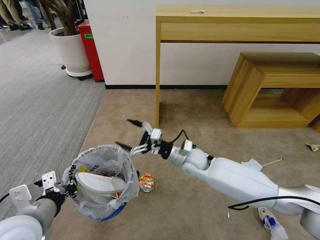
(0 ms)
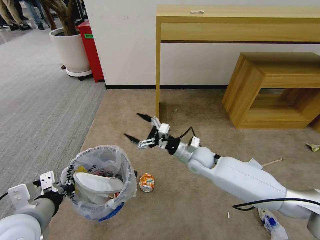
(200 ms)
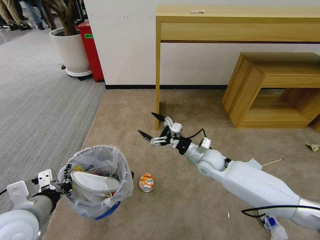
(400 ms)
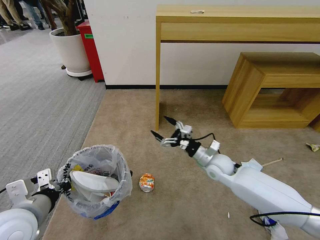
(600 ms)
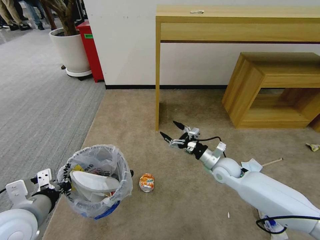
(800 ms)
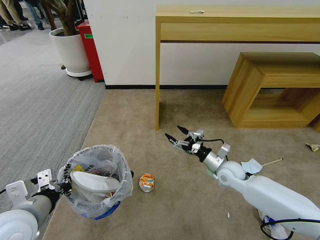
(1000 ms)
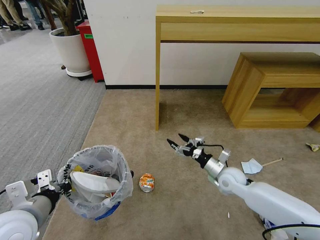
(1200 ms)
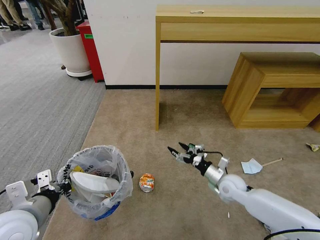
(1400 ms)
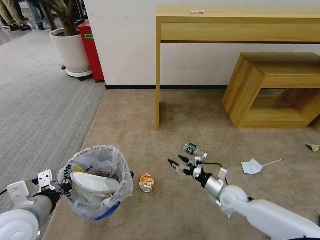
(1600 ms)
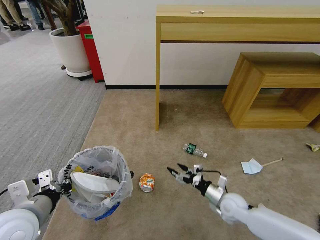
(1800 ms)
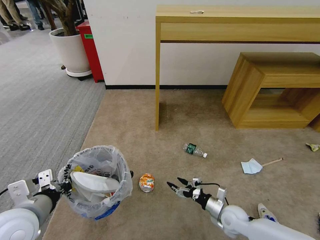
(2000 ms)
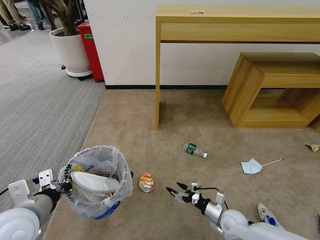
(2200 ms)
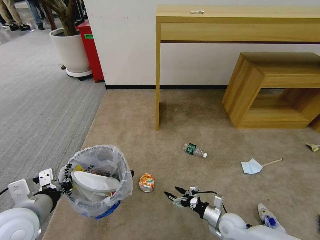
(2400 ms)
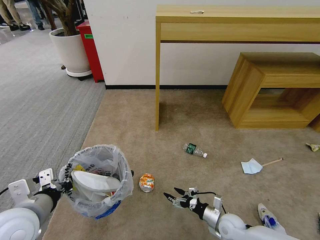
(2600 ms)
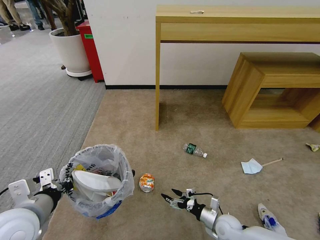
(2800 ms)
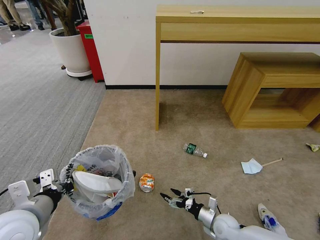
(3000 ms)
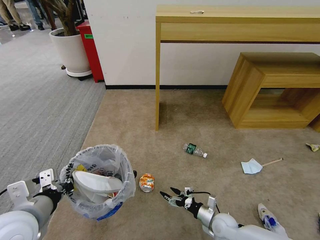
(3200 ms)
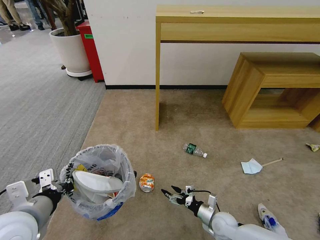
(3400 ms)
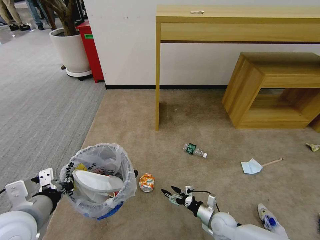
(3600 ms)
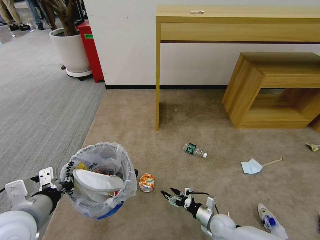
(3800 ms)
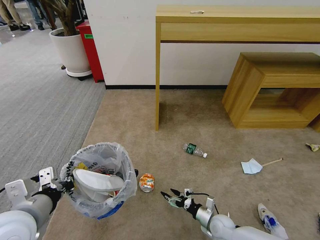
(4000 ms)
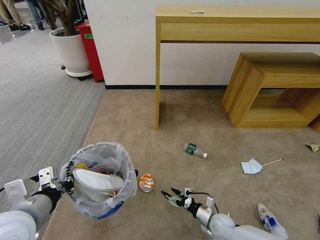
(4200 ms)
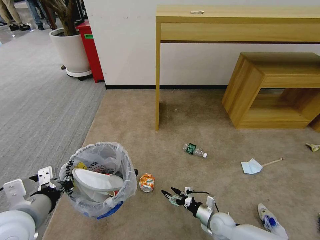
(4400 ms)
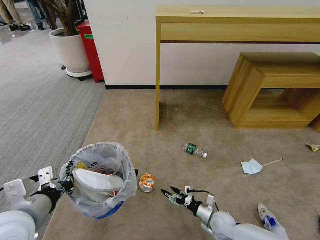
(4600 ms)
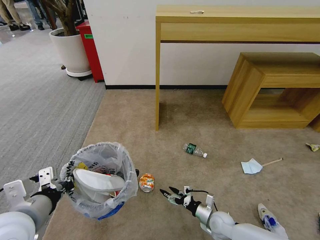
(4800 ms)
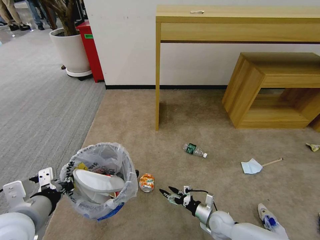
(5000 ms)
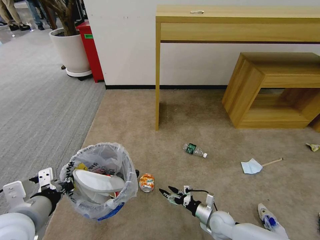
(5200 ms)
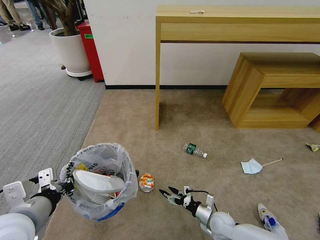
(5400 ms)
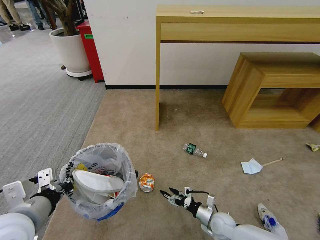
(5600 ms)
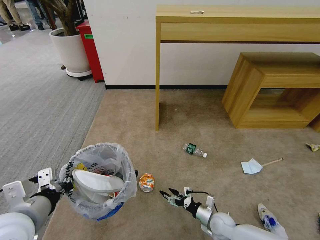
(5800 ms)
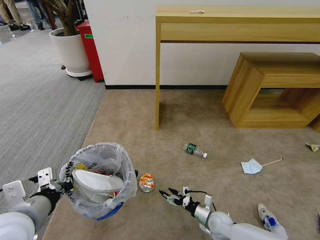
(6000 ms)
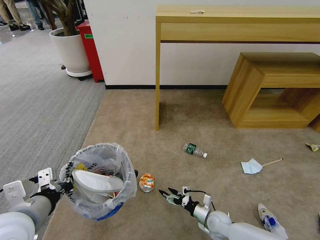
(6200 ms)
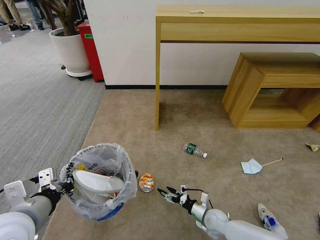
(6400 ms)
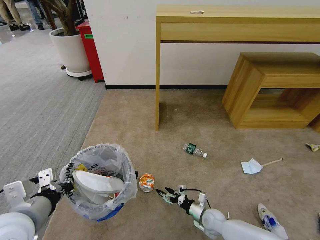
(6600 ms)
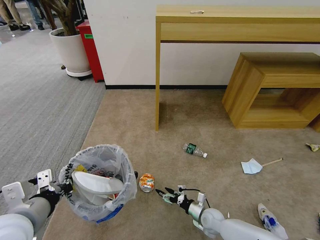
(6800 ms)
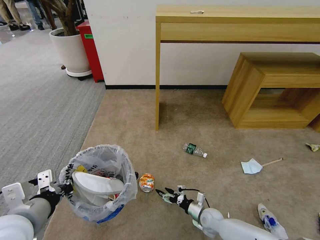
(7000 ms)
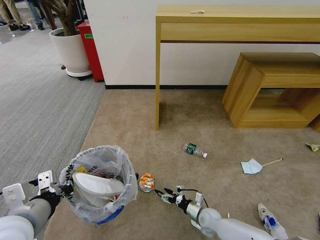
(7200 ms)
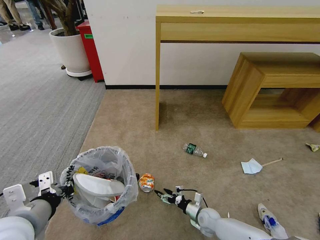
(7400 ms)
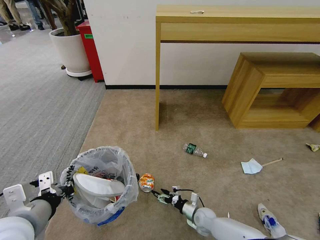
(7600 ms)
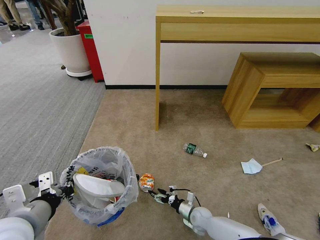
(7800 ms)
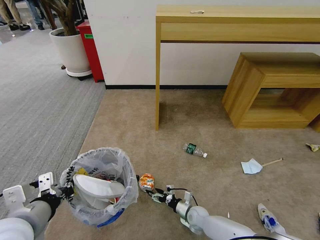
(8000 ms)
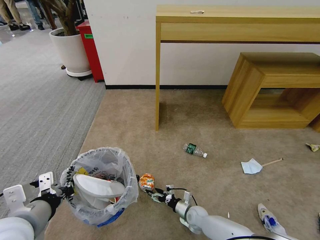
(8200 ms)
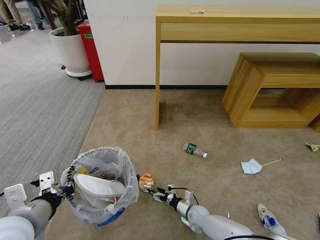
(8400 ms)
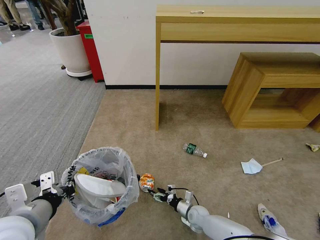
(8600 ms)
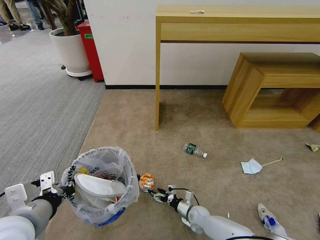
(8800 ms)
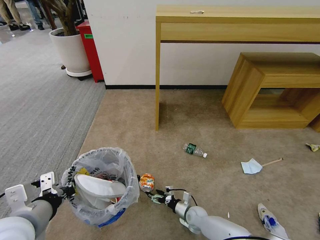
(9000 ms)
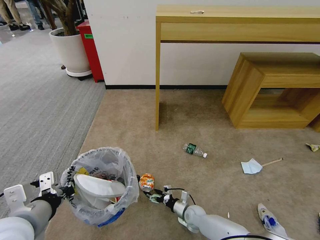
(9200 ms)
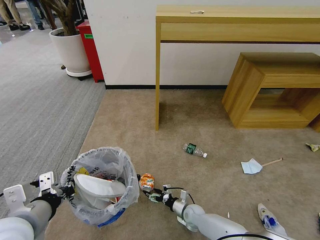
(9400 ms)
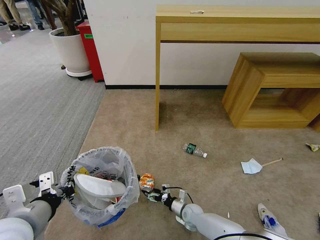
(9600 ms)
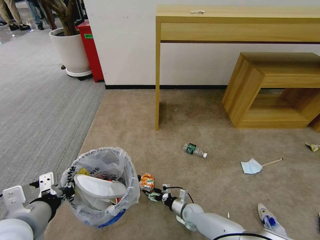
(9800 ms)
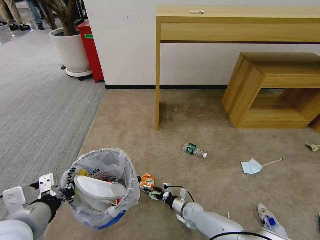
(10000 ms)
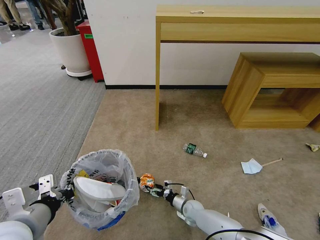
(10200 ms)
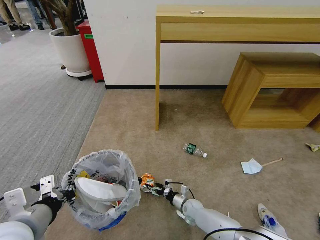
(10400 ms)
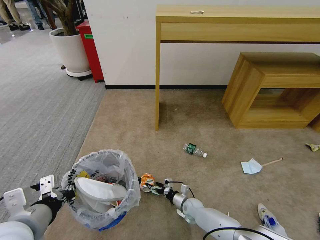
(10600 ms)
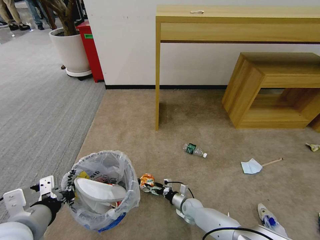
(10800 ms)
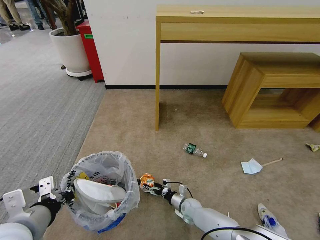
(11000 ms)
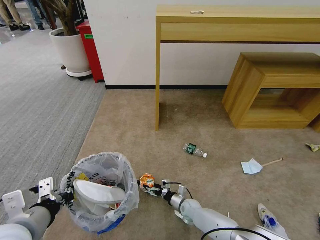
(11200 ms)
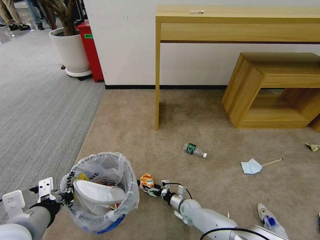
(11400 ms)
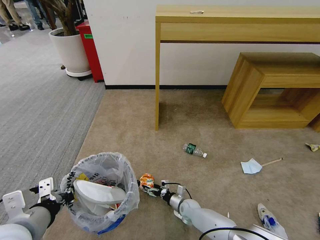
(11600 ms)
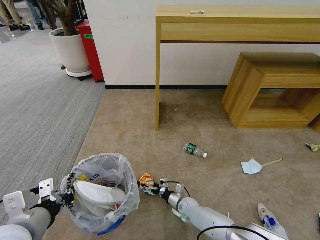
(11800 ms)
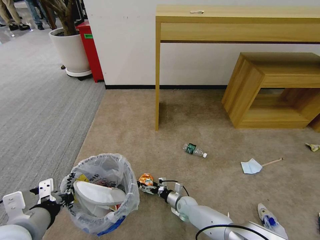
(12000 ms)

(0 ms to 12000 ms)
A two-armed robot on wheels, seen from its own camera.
Task of the whole recording: Pick up the trash bin and place the garbage on the floor into it.
0 ms - 1600 ms: The right gripper travels to the right, downward and backward by some 20 cm.
1600 ms - 3000 ms: The right gripper heads downward and backward, covering roughly 10 cm.
3000 ms - 4400 ms: The grippers move only a little.
4400 ms - 6000 ms: Both grippers stay about where they are.
6000 ms - 7600 ms: The right gripper shifts by some 5 cm.
7600 ms - 9000 ms: The grippers stay close to where they were, moving slightly.
9000 ms - 12000 ms: There are only small adjustments of the grippers.

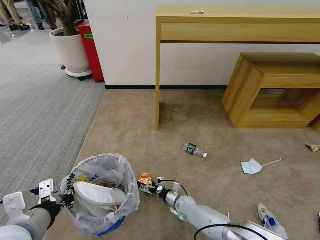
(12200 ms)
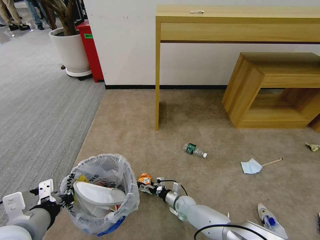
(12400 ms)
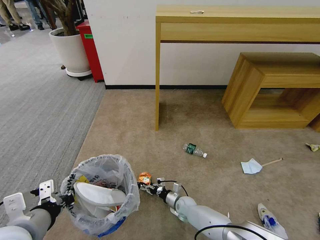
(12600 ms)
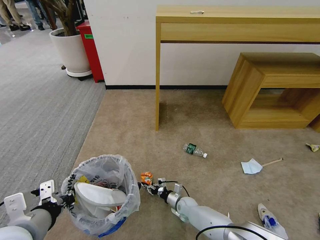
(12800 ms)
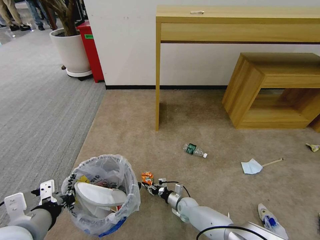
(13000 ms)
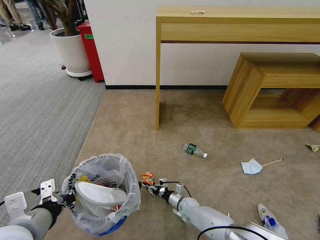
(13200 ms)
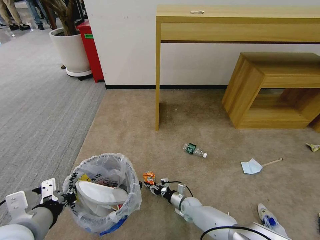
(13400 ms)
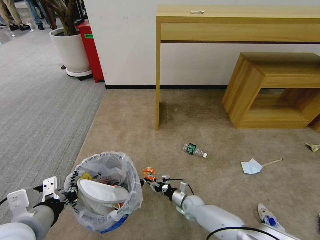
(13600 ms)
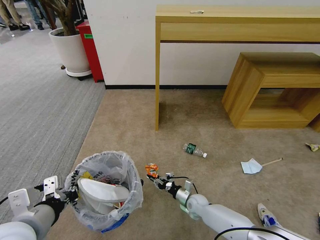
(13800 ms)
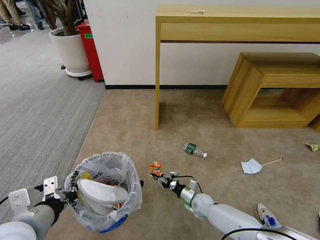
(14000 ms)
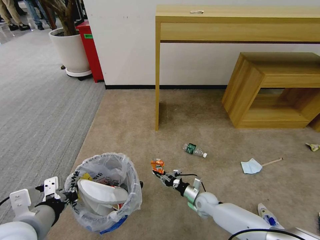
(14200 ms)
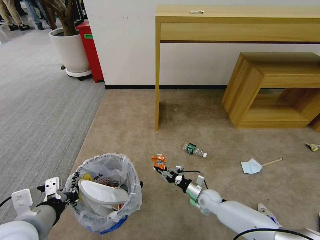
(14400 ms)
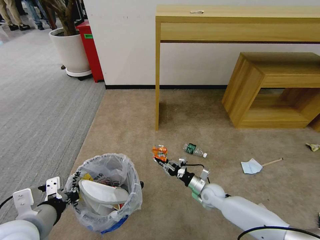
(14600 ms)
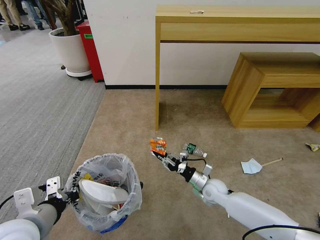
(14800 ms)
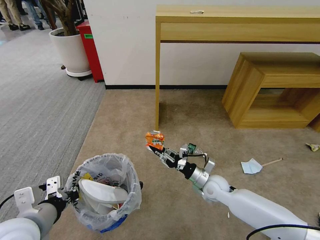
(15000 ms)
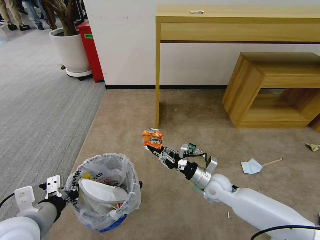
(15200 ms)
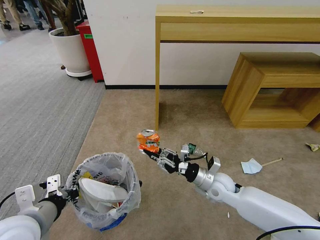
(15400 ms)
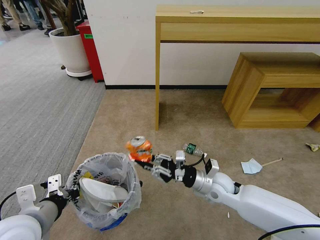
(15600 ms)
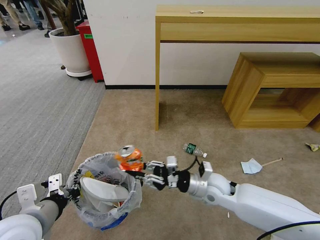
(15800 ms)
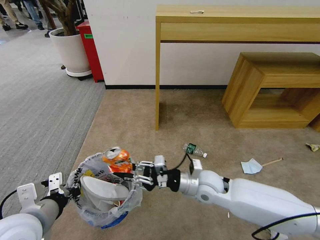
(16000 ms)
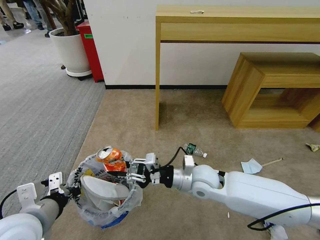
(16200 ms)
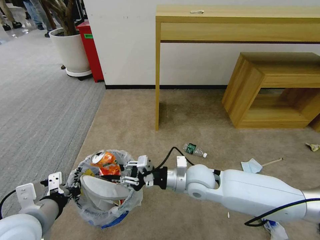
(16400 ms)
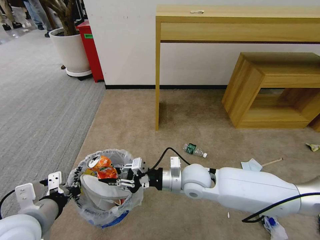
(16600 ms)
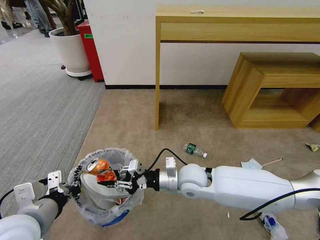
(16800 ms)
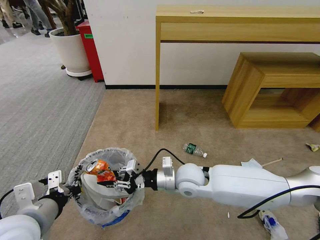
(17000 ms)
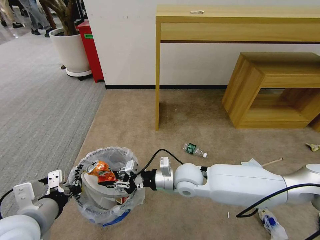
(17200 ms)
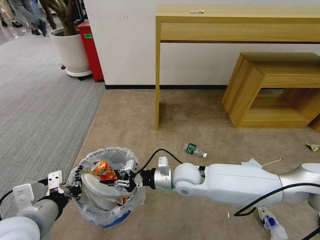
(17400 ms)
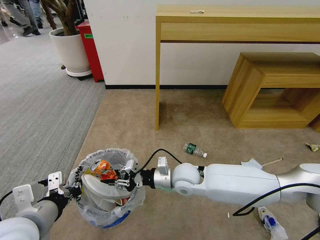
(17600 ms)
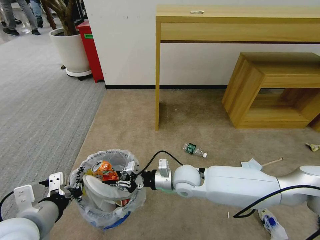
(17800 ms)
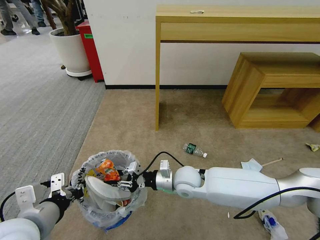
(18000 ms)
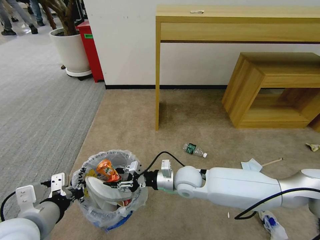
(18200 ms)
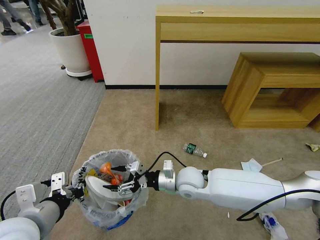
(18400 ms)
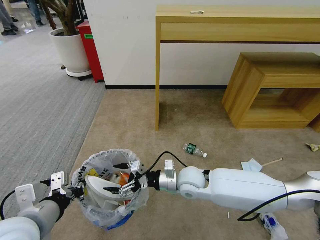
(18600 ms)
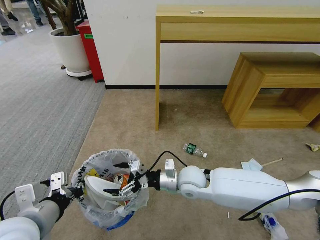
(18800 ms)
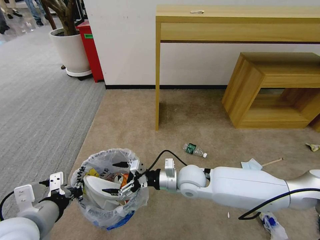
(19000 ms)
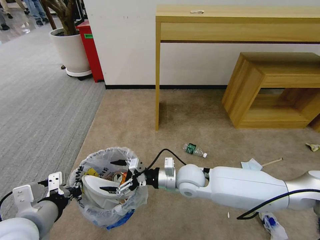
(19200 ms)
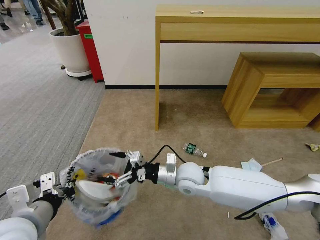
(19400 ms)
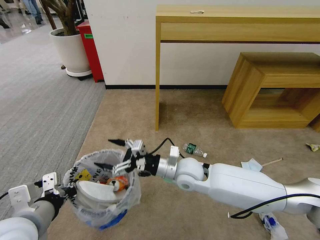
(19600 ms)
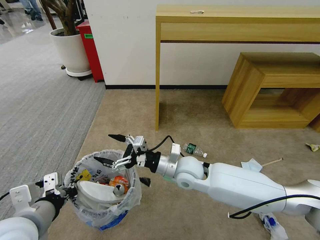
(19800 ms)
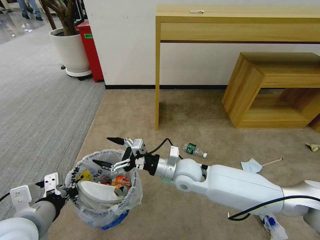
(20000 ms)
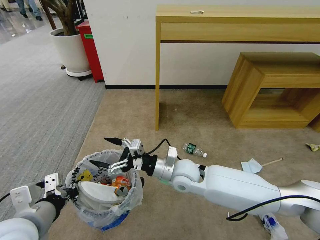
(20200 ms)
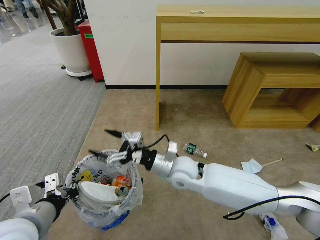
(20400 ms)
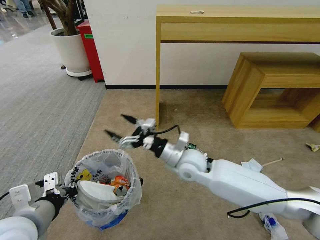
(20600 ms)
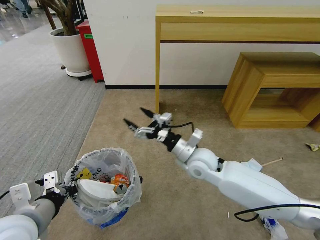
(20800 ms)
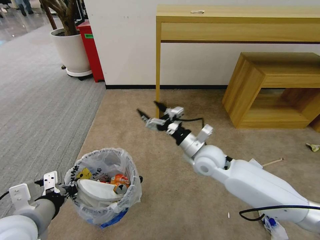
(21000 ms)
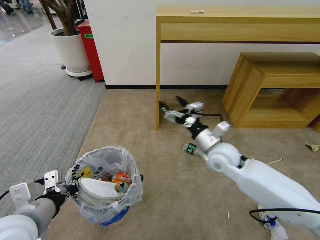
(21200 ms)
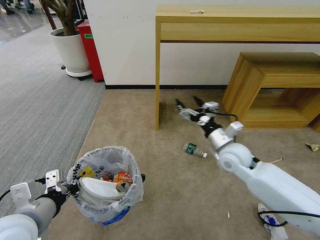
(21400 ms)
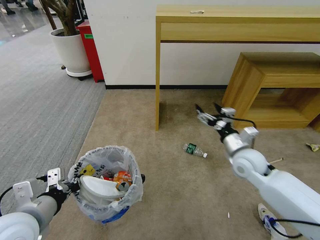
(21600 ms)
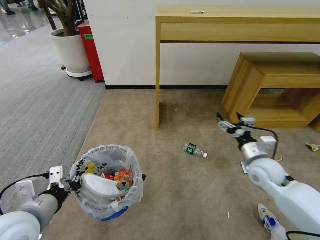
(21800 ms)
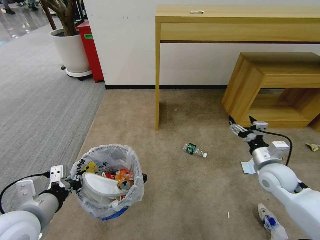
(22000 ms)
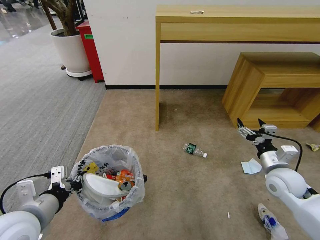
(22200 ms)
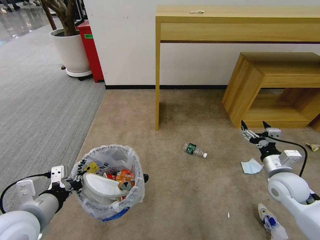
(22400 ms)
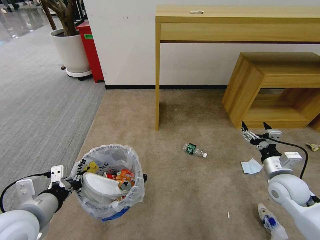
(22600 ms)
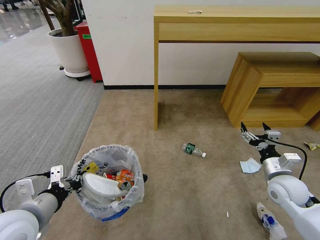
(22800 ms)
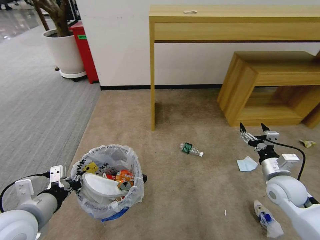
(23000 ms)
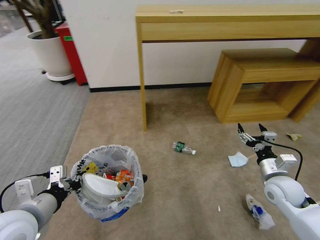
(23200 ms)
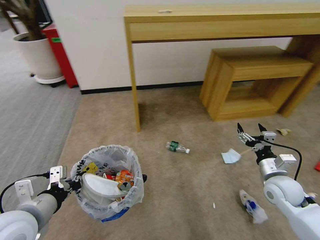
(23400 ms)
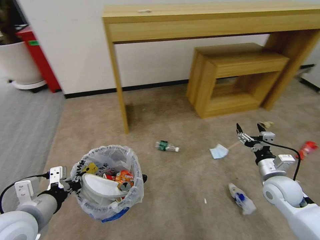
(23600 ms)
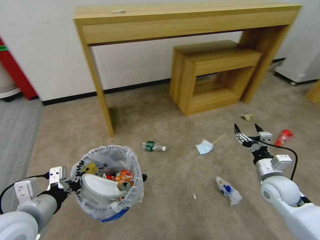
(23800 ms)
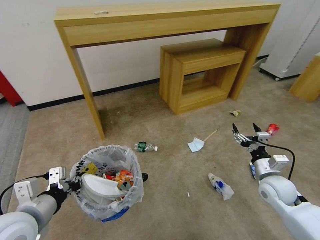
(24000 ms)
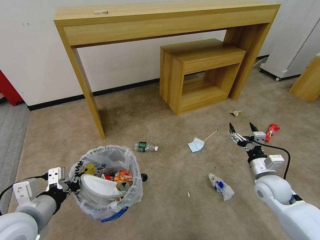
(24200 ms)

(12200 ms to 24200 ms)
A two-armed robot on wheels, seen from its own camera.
Task of the whole recording: Pick up the trash bin and place the garbage on the floor into it.
12200 ms - 13800 ms: The right gripper changes place by about 5 cm, and closes up.
13800 ms - 15200 ms: The right gripper heads upward, covering approximately 20 cm.
15200 ms - 16600 ms: The right gripper is displaced to the left and upward by roughly 15 cm.
16600 ms - 18200 ms: The grippers stay close to where they were, moving slightly.
18200 ms - 19800 ms: The right gripper ends up approximately 5 cm from where it was, and opens up.
19800 ms - 21200 ms: The right gripper heads to the right, covering roughly 10 cm.
21200 ms - 22600 ms: The right gripper travels to the right by some 20 cm.
